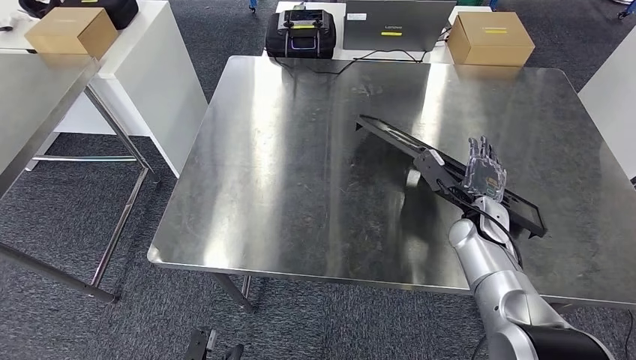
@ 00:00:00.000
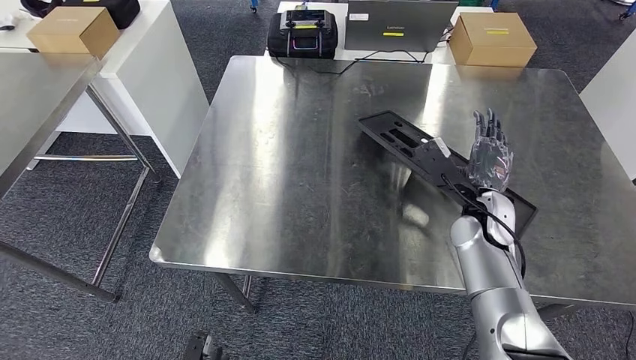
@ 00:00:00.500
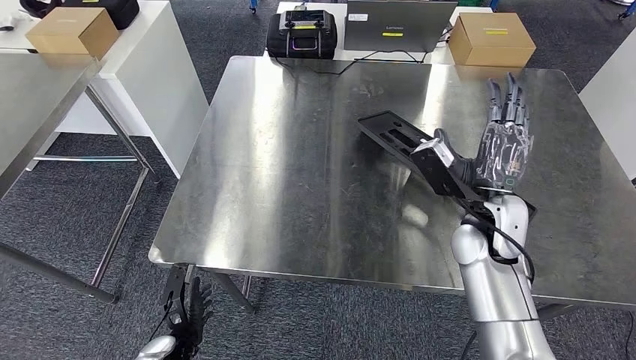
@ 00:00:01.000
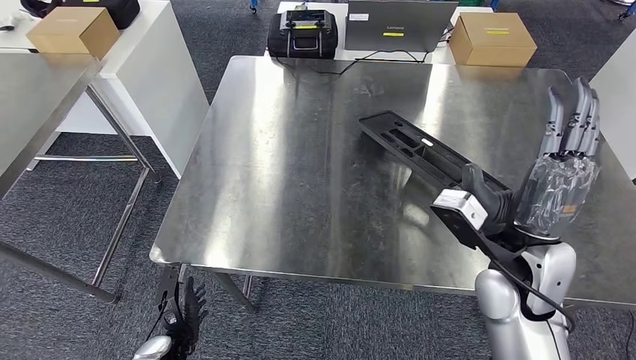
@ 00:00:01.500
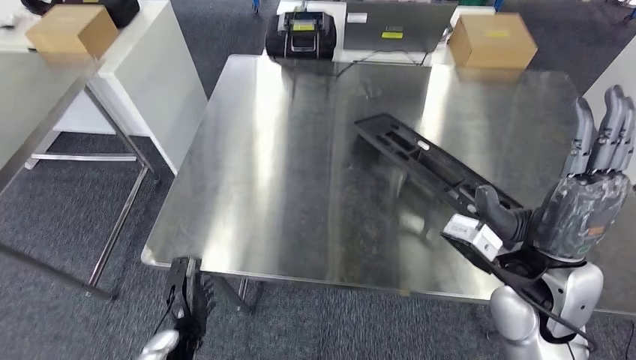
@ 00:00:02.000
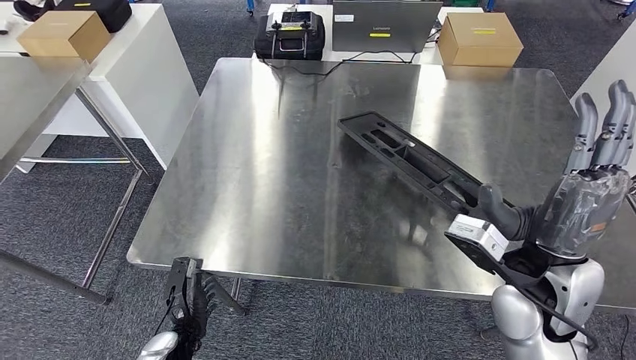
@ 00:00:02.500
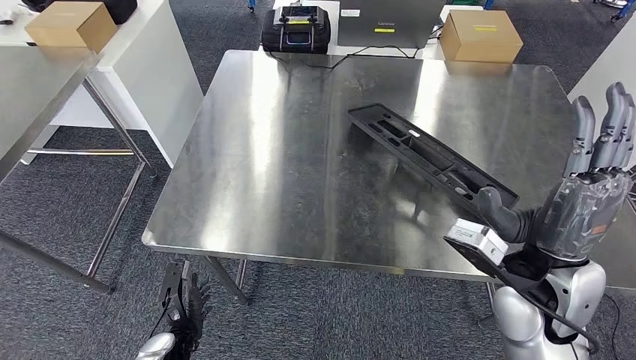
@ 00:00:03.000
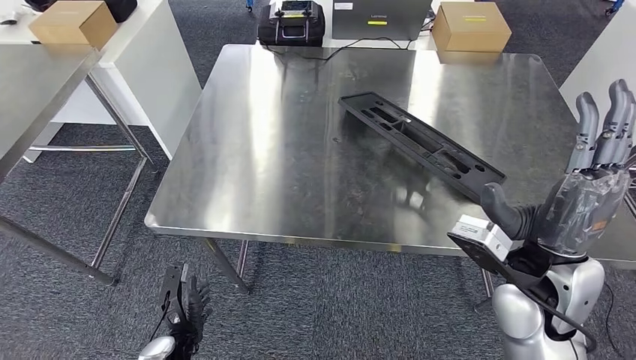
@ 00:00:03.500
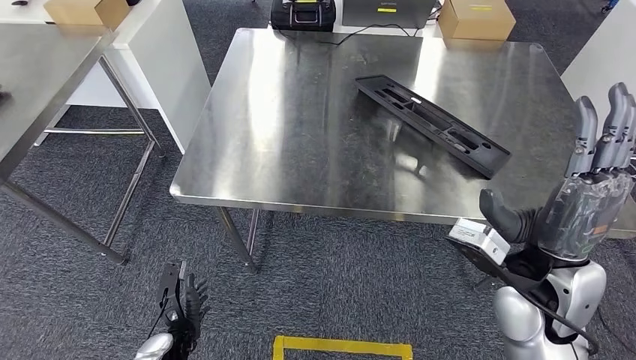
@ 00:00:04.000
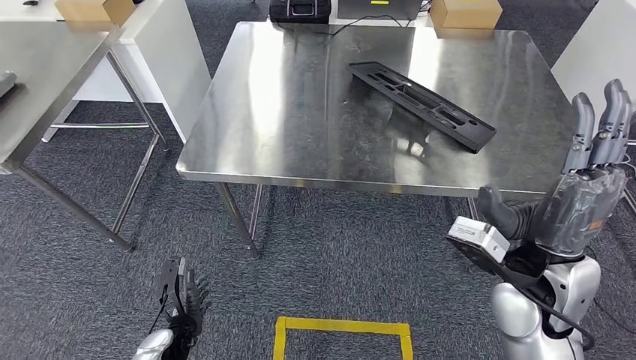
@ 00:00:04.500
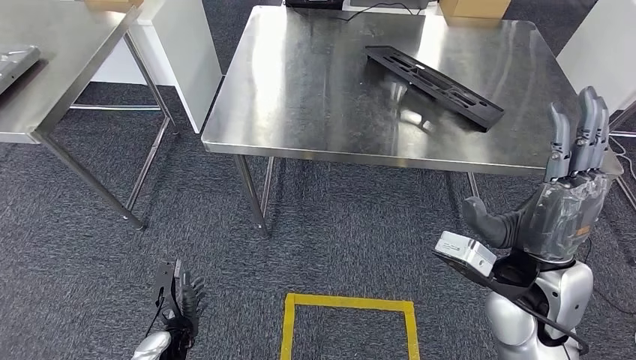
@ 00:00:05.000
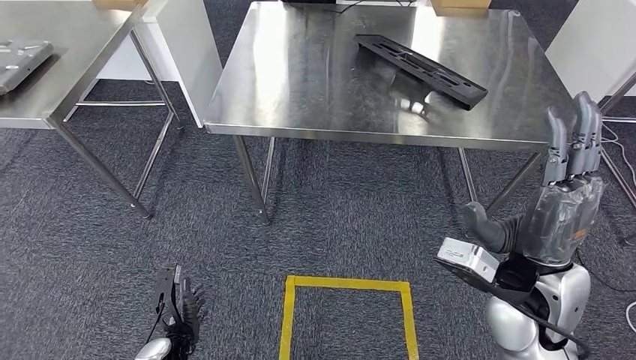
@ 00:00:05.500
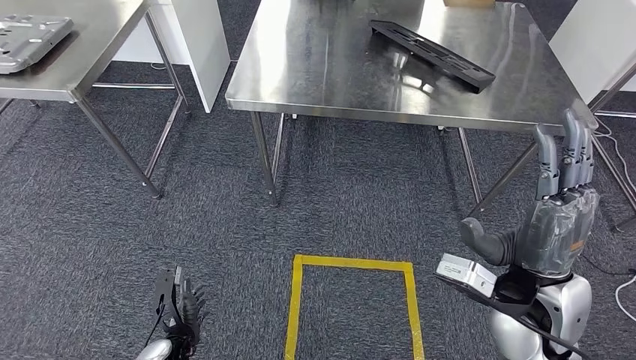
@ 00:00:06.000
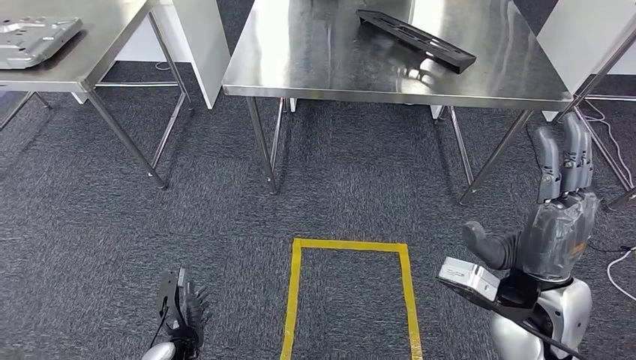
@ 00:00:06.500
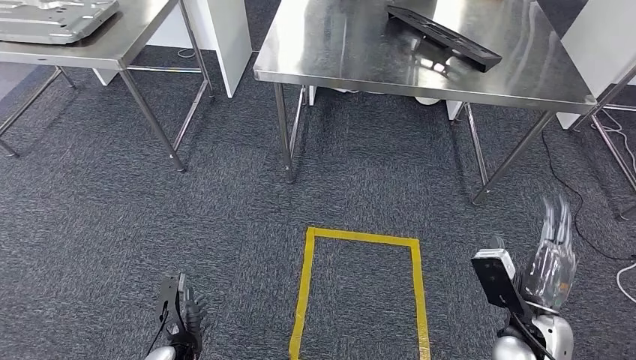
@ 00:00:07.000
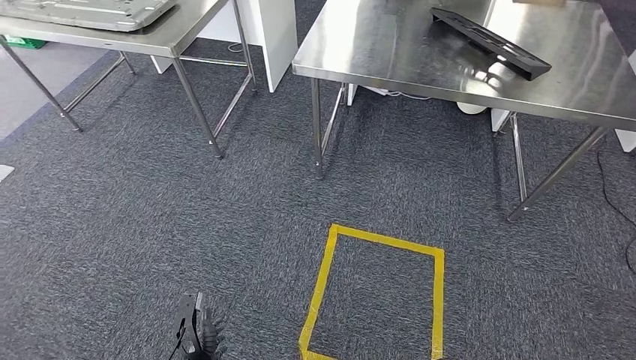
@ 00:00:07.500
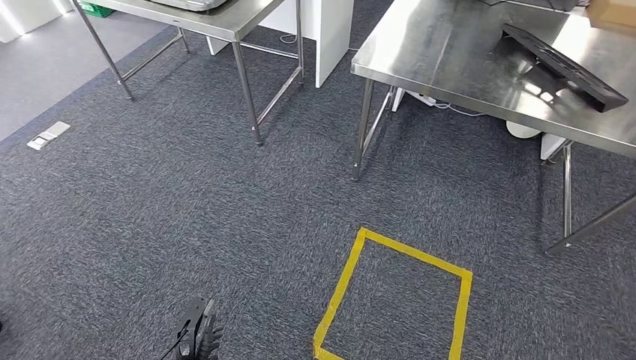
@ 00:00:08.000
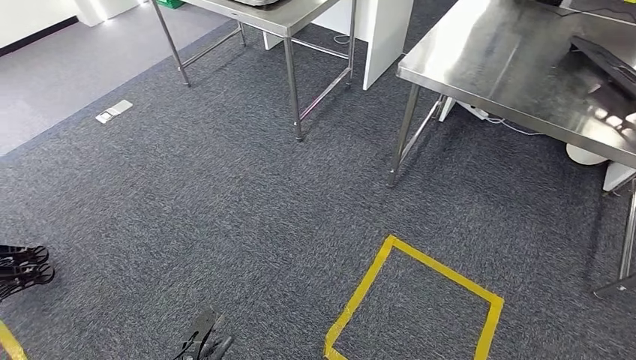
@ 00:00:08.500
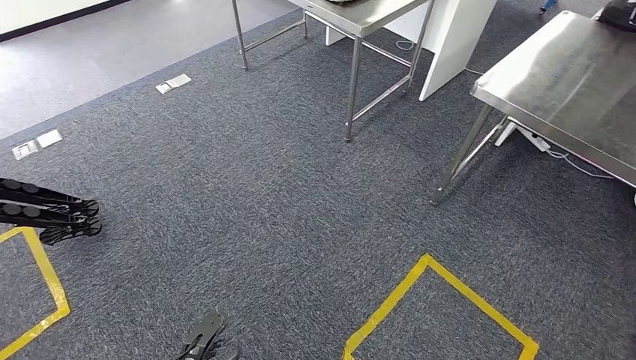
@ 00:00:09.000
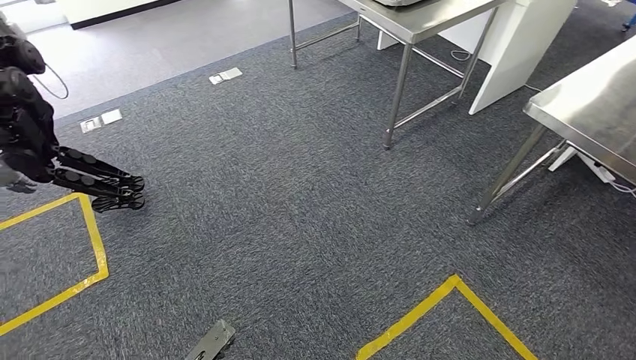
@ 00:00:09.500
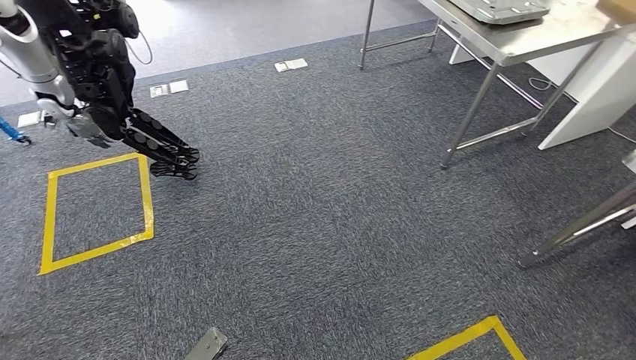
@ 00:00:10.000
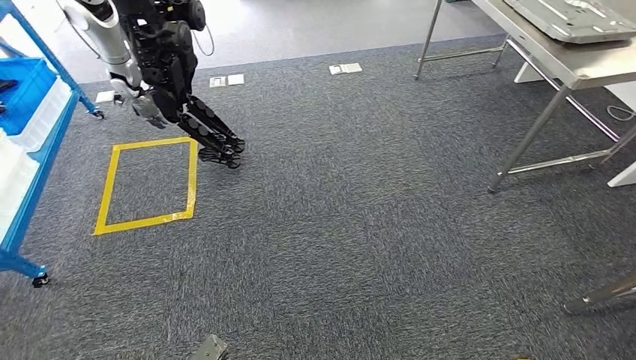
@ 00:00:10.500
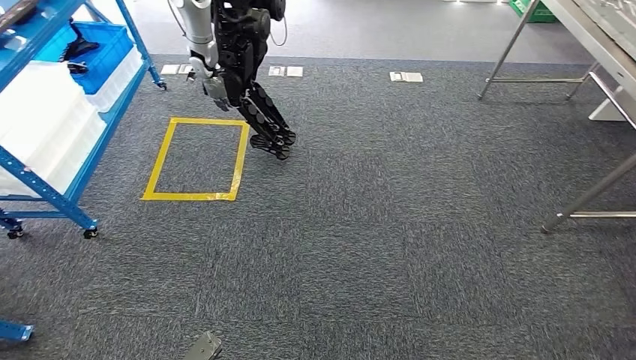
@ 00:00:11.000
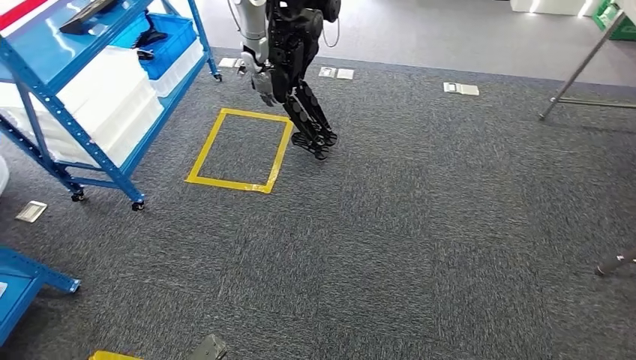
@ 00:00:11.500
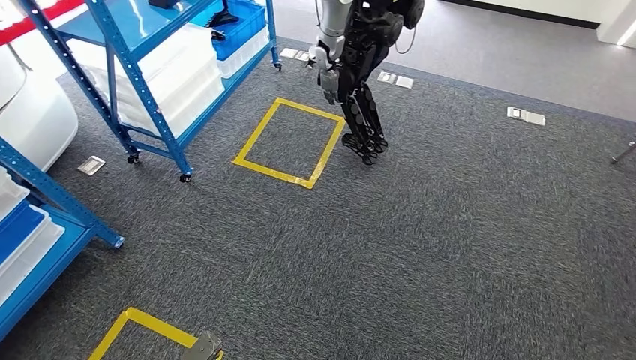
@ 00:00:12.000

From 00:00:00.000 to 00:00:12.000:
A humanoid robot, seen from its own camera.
Step, from 00:00:00.000 to 00:00:03.500: Insert the large material into the corresponding slot on the workbench.

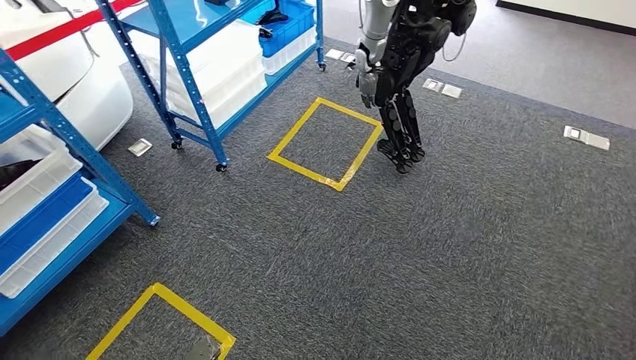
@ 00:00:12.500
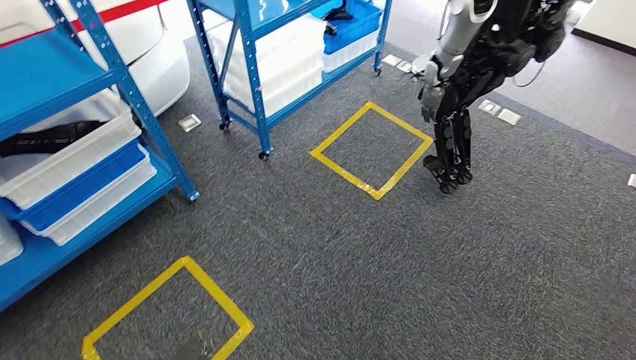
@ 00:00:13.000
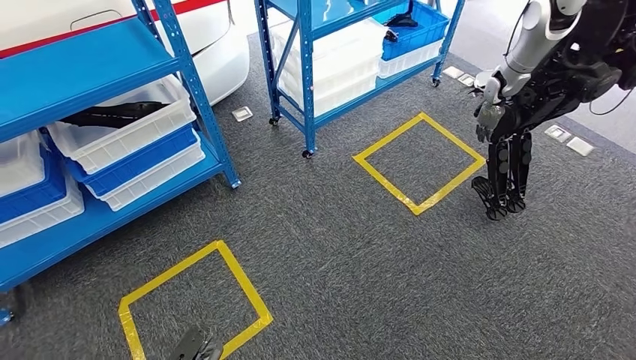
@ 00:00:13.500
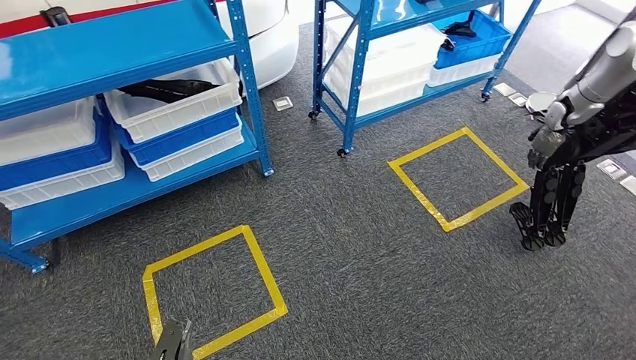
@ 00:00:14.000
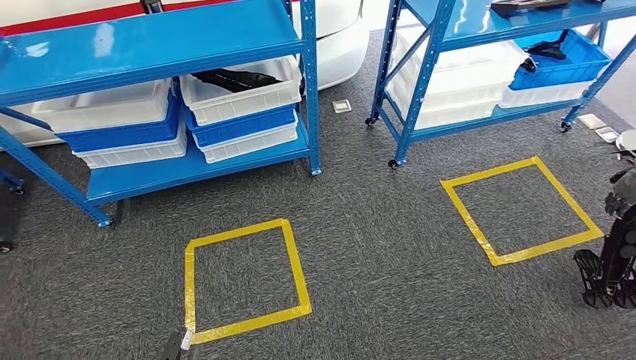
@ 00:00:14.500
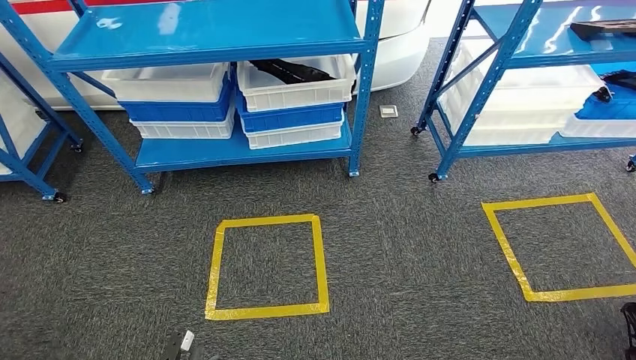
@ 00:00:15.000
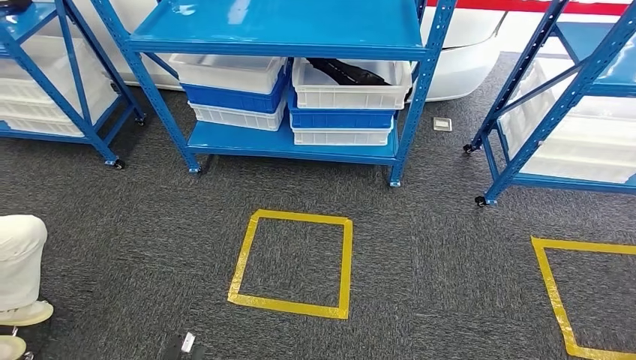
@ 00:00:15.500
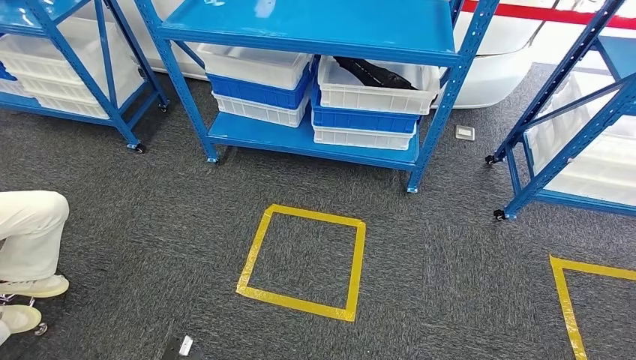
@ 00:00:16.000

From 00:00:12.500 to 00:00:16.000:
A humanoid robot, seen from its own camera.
Step, from 00:00:12.500 to 00:00:16.000: Move to the initial position of the shelf.
